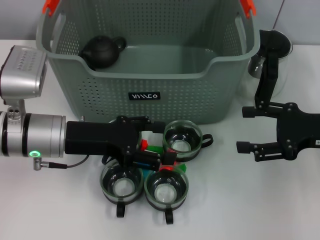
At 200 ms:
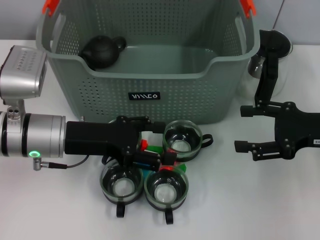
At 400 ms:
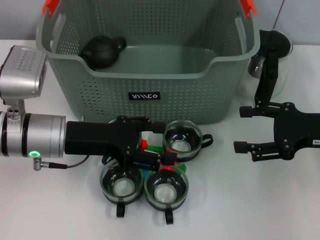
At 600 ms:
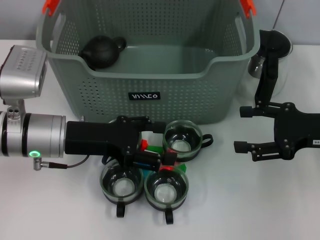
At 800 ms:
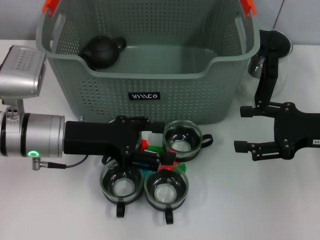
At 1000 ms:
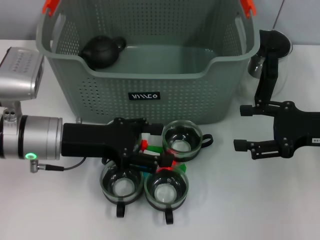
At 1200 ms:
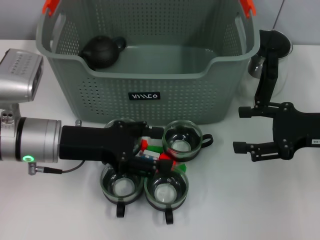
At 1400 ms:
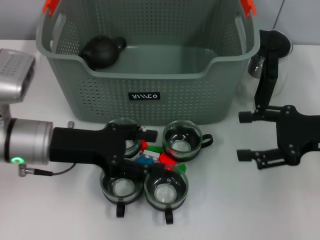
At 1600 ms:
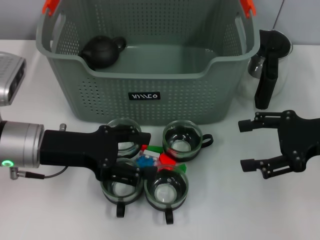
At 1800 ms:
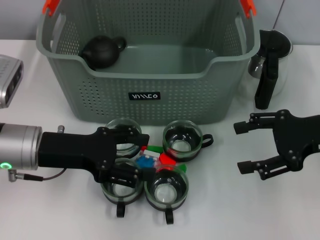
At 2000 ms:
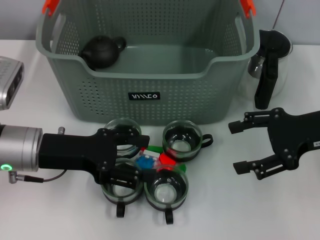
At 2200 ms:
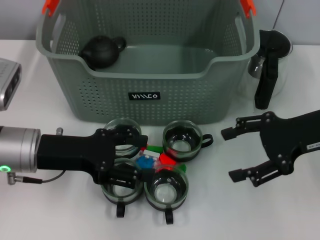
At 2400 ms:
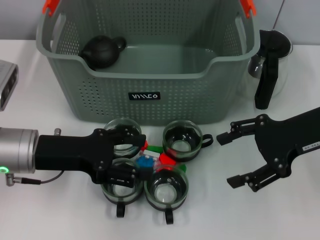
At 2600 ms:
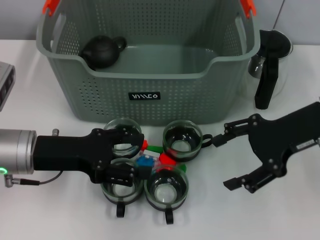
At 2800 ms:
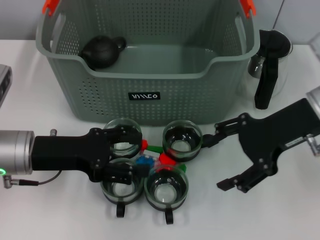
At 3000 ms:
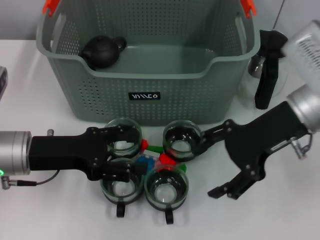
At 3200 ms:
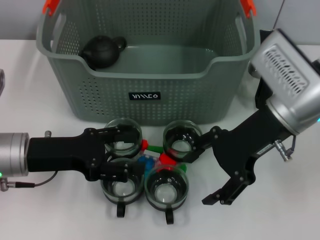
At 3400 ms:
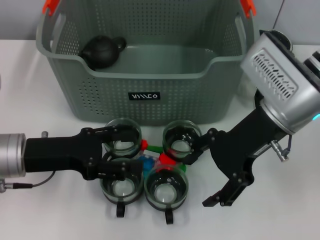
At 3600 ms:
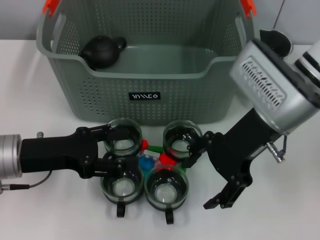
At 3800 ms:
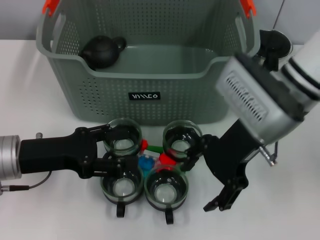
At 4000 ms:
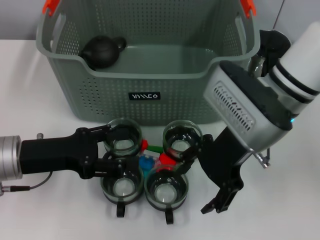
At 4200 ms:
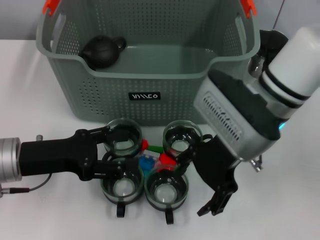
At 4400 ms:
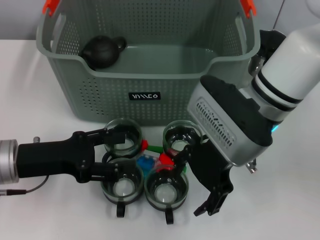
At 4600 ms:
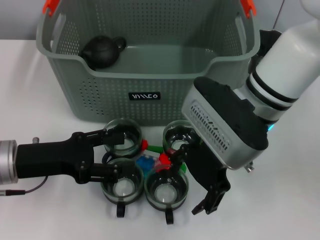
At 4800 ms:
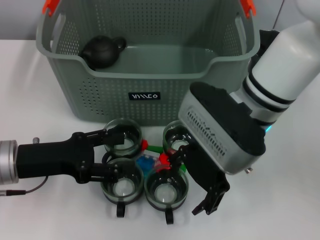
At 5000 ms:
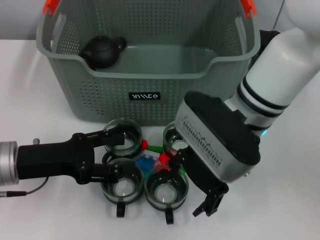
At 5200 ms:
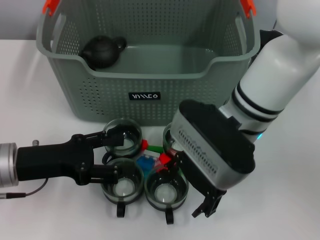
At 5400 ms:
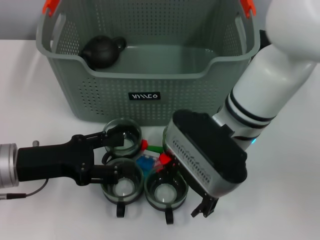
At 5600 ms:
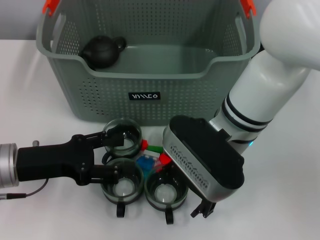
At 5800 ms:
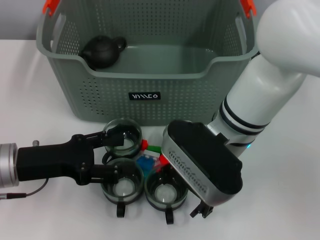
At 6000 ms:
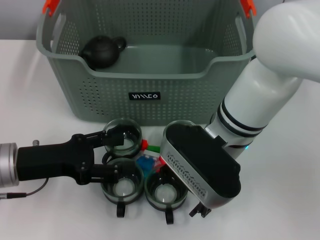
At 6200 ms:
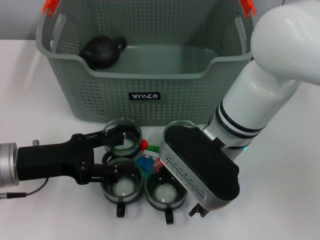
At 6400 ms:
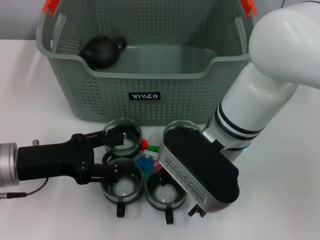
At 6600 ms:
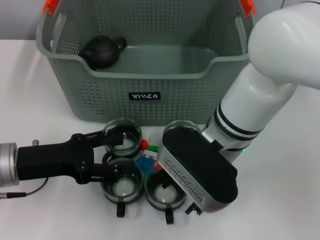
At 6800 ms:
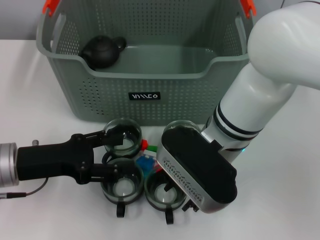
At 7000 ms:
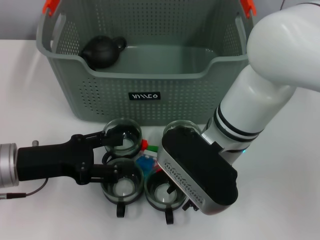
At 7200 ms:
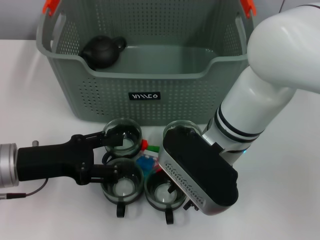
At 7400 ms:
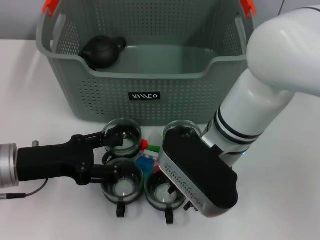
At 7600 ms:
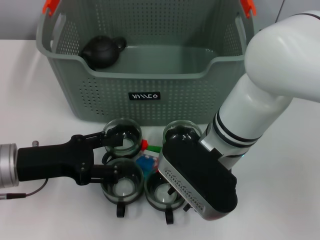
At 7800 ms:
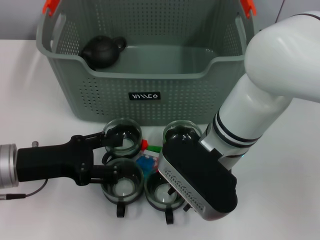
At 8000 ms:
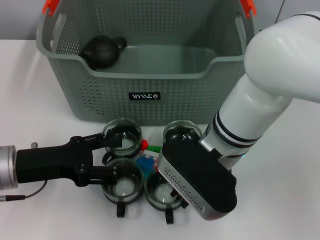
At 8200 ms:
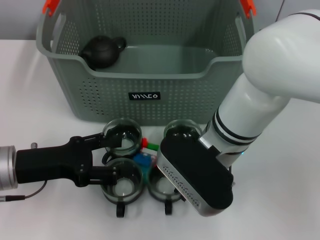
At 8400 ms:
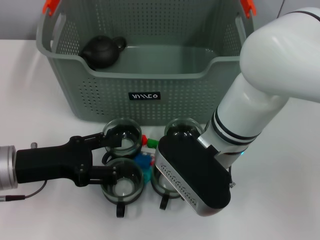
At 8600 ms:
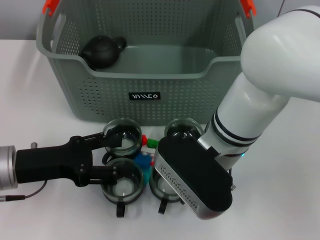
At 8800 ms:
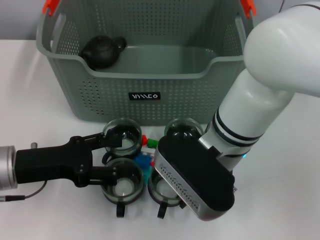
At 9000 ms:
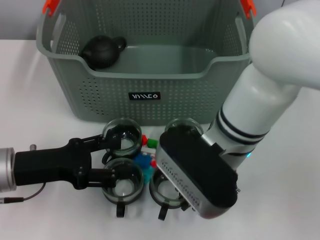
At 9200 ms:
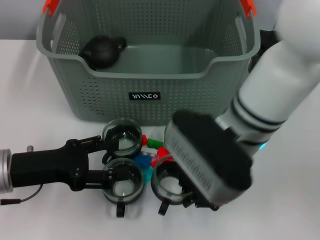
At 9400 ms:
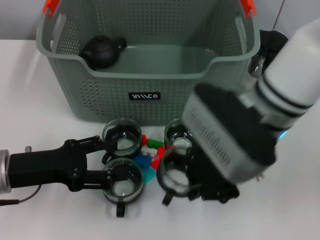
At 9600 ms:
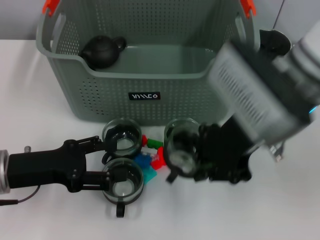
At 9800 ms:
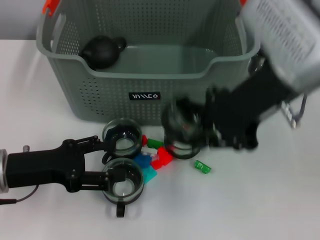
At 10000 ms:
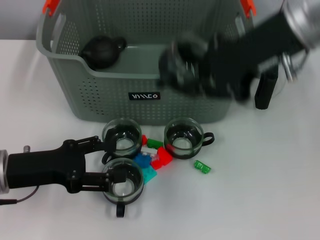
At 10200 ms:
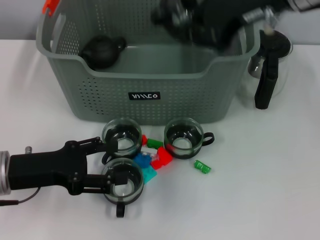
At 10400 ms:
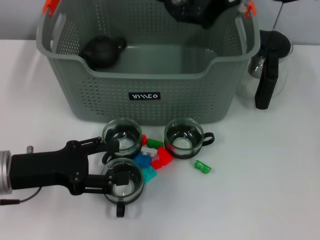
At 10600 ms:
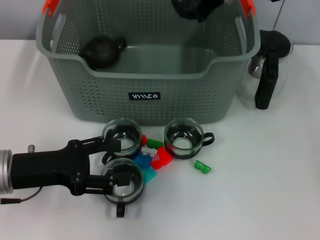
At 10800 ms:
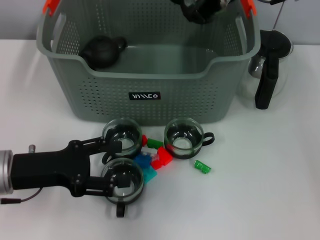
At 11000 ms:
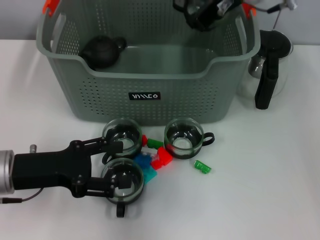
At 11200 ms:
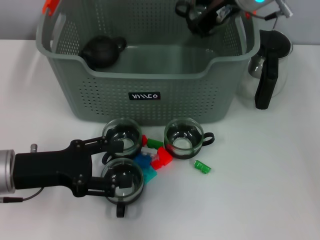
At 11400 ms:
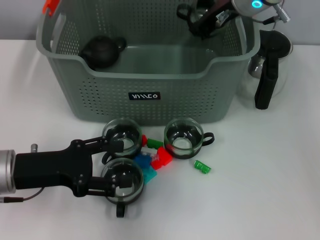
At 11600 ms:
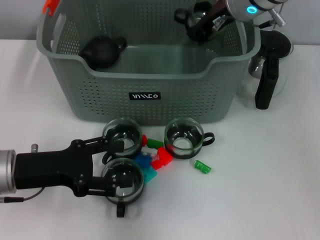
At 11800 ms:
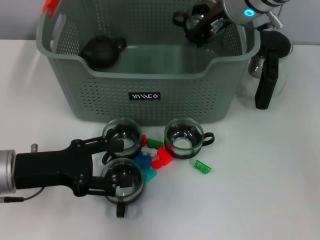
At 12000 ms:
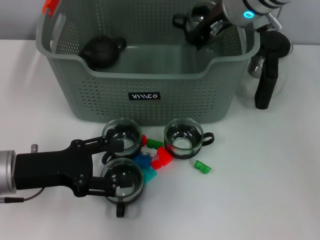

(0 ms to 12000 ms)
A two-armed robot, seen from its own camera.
Task of the whole recording: pick up the teacup on the table and place it into the storage bin, pick up the block on the table and place it into the storage bin.
Step, 0 ms - 8200 ms: Grasp the cup with right gripper.
0 ms - 1600 ms: The grippers make only small movements.
1600 ms - 3000 ms: The right gripper shifts roughly 10 cm to the left.
3000 ms - 4400 ms: The right gripper moves to the left, approximately 10 cm.
4400 ms - 6000 ms: The grippers move only a little.
6000 ms - 7600 ms: The right gripper closes its fingers.
7600 ms - 9000 ms: The right gripper closes its fingers.
9000 ms - 10400 ms: The right gripper shifts about 20 cm upward, forward and to the right.
10400 ms - 12000 ms: The right gripper moves downward, some 5 cm.

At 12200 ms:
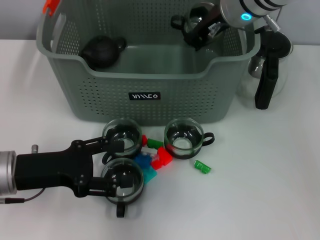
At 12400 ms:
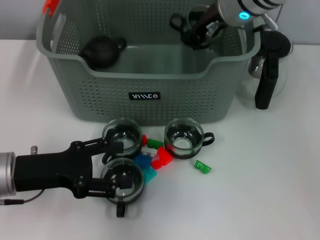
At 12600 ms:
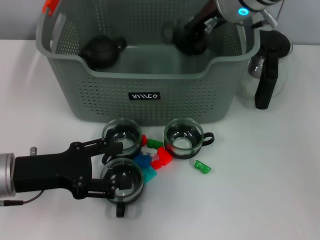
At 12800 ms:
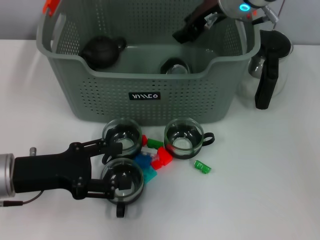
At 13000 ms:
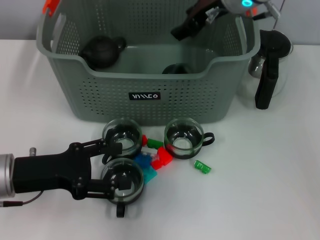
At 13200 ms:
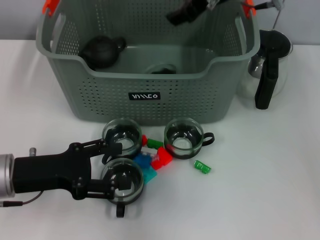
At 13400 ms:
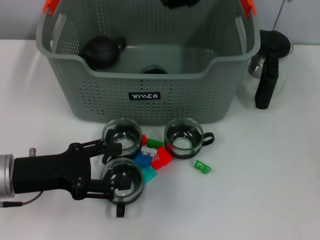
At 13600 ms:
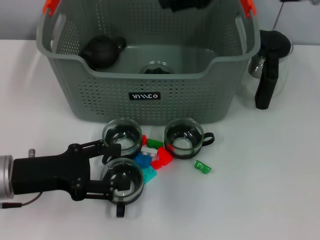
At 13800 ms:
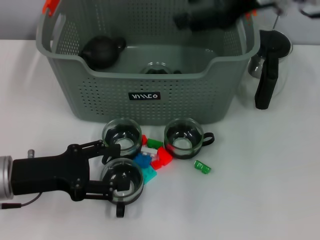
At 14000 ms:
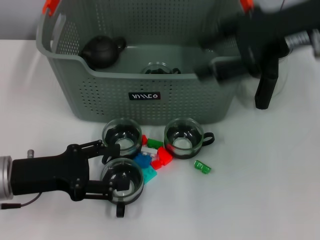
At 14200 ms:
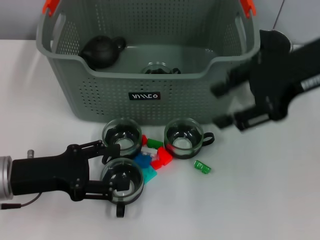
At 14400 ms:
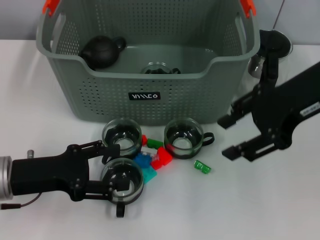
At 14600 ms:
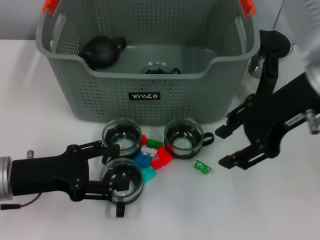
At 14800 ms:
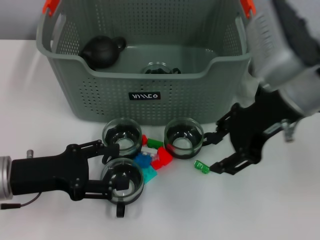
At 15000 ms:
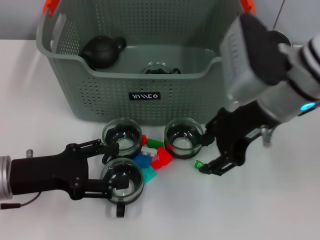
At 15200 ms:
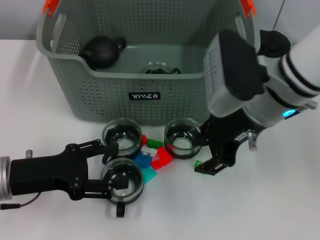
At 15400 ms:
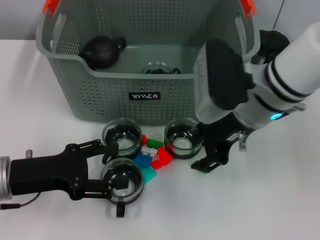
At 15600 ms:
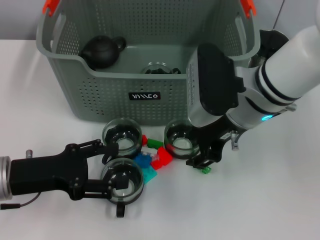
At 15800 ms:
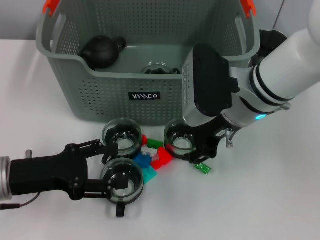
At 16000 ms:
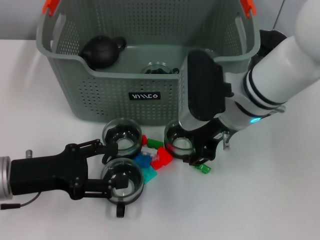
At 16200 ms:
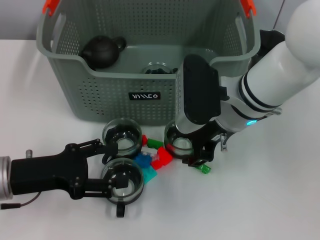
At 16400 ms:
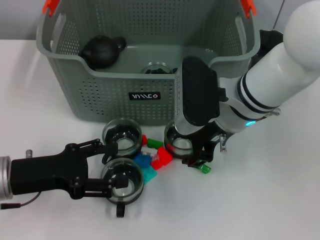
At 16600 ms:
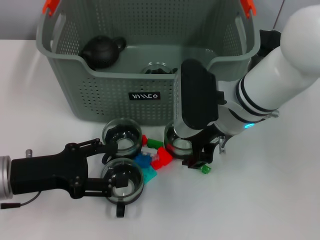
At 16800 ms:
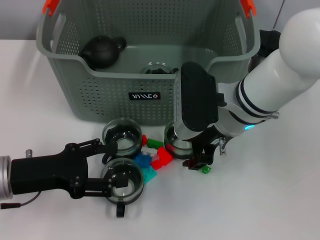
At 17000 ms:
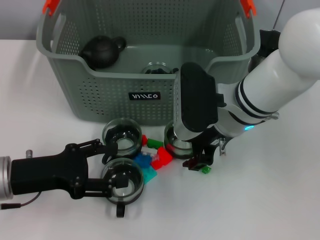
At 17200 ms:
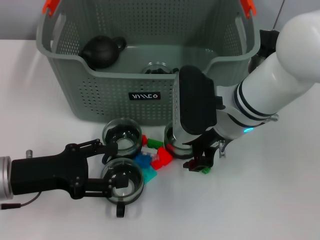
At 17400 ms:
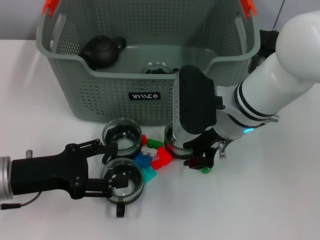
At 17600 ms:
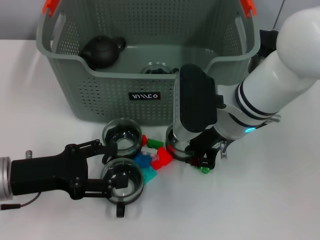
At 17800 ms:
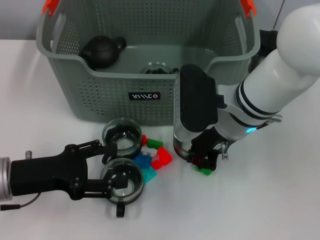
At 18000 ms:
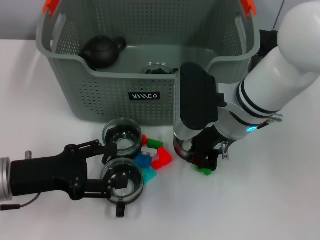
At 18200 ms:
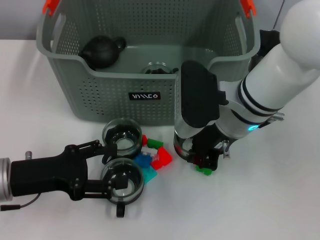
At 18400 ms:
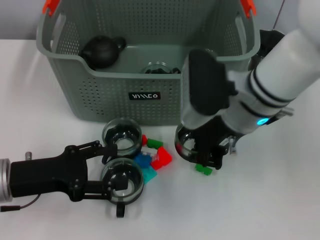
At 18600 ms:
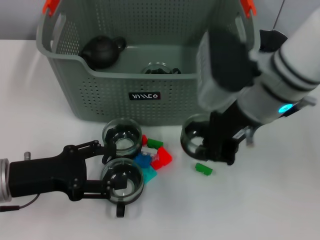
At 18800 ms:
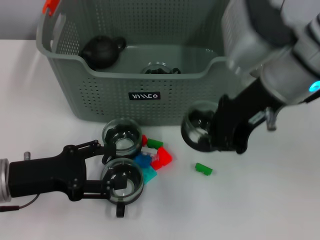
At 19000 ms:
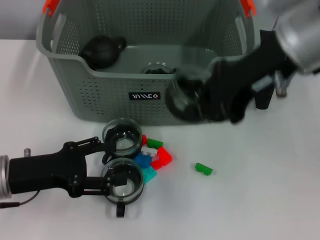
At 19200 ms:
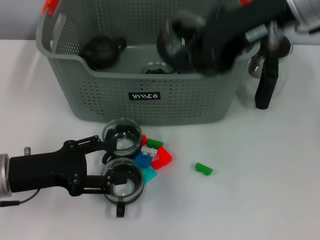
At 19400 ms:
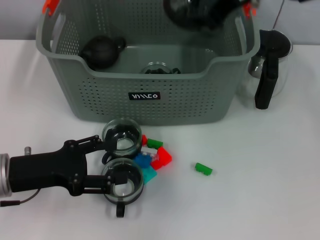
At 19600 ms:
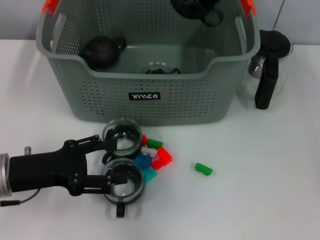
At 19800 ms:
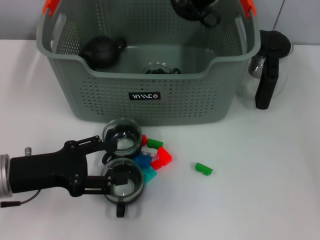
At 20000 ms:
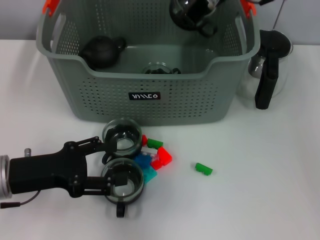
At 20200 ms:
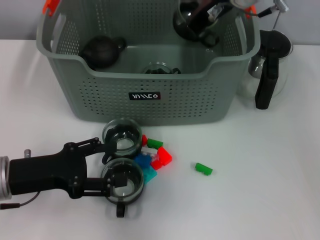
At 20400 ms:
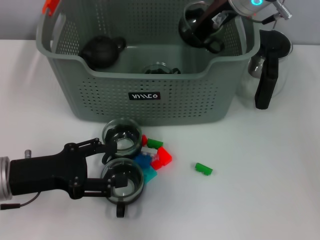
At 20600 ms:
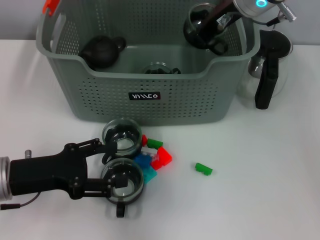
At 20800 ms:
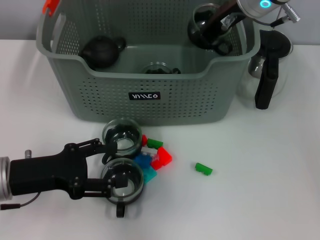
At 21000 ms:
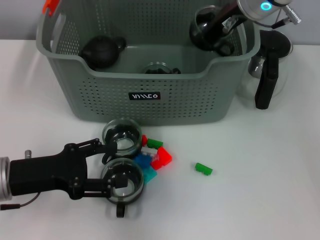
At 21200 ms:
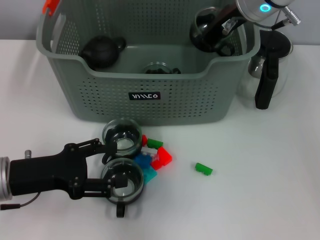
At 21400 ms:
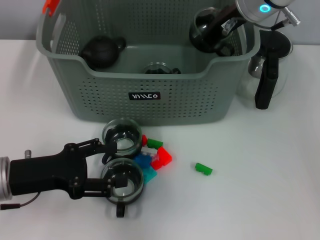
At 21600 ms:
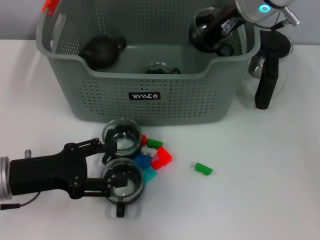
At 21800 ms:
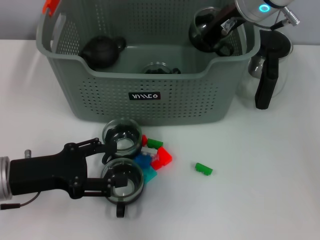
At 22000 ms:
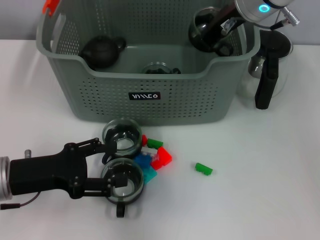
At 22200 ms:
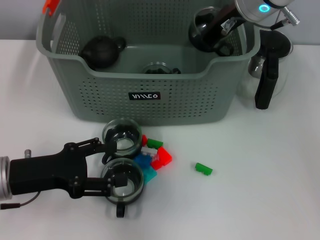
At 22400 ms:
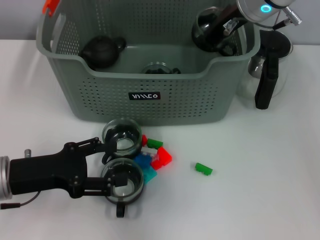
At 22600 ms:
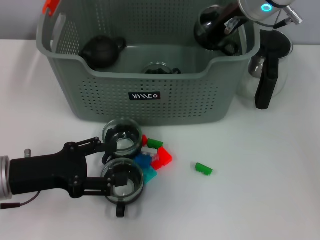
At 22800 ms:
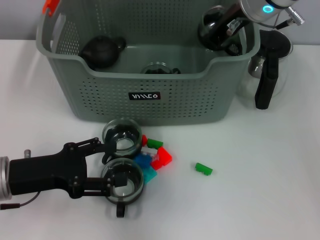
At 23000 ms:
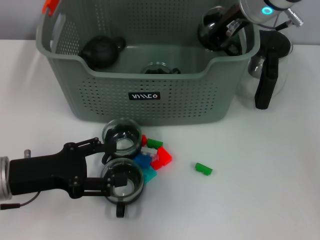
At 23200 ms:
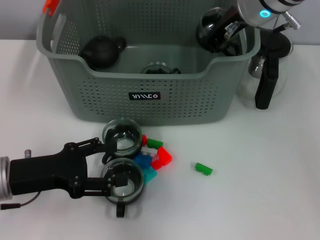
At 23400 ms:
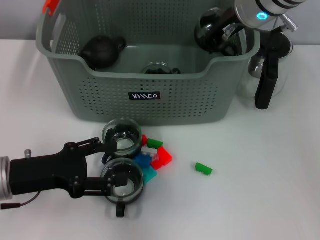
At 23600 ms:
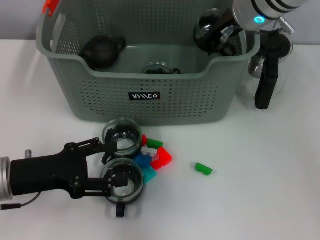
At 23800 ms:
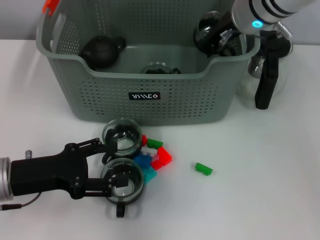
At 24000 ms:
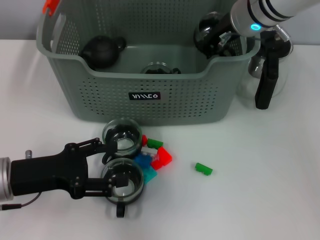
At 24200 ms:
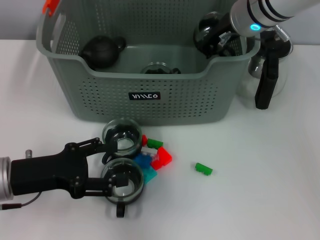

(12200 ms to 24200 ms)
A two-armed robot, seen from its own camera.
Task of the whole recording: pick up the teacup on the table and place it into the storage bin, pick up the block on the table and place it into the storage bin.
Step, 13200 ms - 17800 ms: Grasp the cup with right gripper.
12200 ms - 13800 ms: The right gripper goes some 15 cm backward, upward and to the right, and opens.
13800 ms - 15200 ms: The right gripper is displaced downward and to the left by approximately 10 cm.
15200 ms - 16600 ms: The right gripper moves approximately 5 cm.
16600 ms - 18200 ms: The right gripper closes.
18200 ms - 19800 ms: The right gripper travels upward and forward by approximately 20 cm.
19800 ms - 21200 ms: The right gripper moves downward, approximately 5 cm.
21200 ms - 22600 ms: Both grippers stay put.
22600 ms - 24200 ms: The grippers stay close to where they were, moving slightly.
